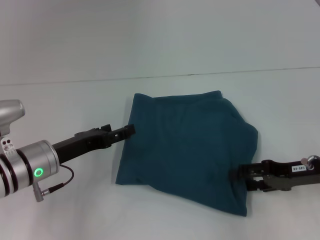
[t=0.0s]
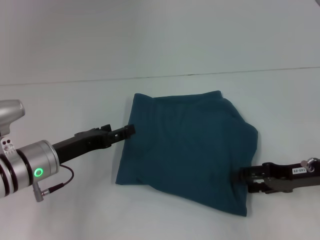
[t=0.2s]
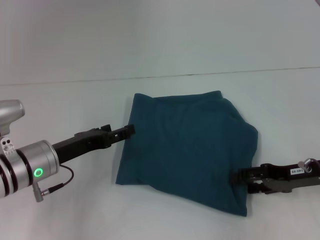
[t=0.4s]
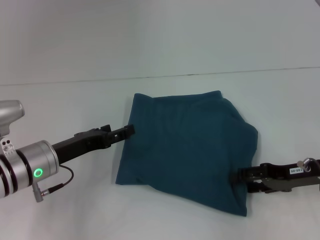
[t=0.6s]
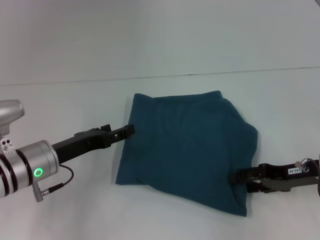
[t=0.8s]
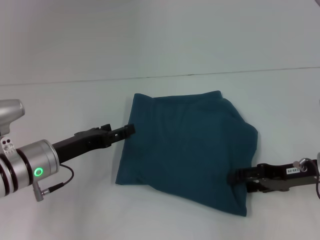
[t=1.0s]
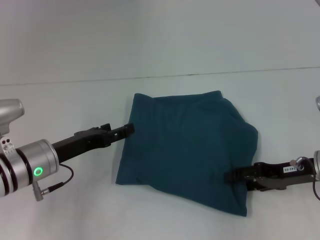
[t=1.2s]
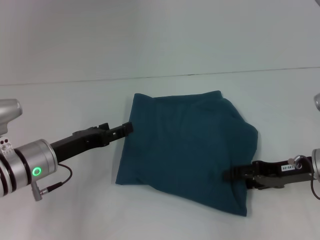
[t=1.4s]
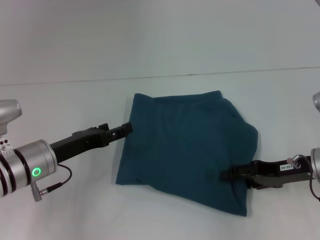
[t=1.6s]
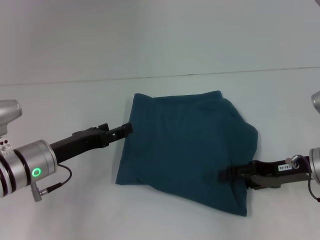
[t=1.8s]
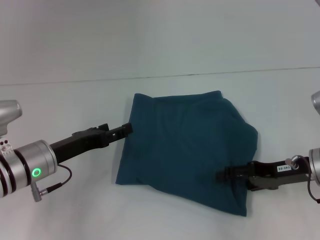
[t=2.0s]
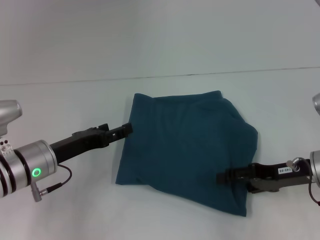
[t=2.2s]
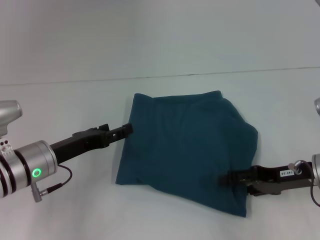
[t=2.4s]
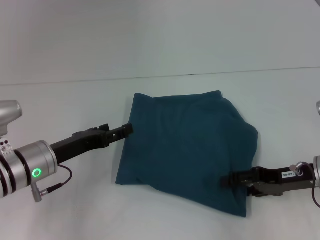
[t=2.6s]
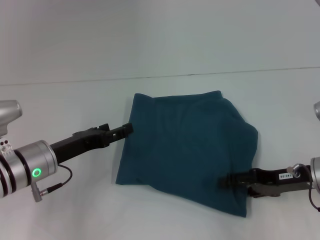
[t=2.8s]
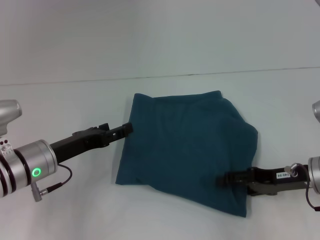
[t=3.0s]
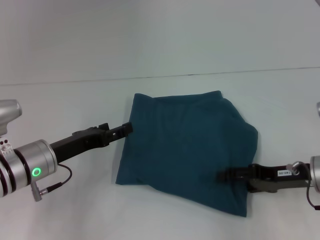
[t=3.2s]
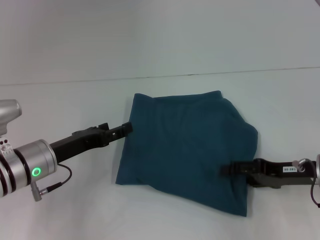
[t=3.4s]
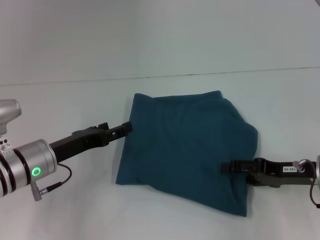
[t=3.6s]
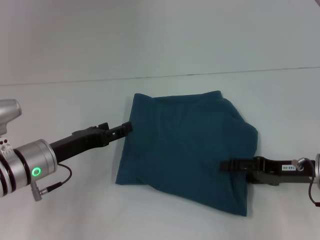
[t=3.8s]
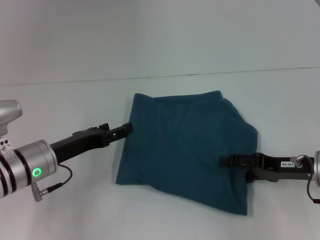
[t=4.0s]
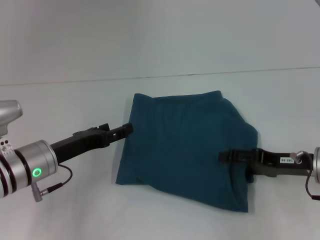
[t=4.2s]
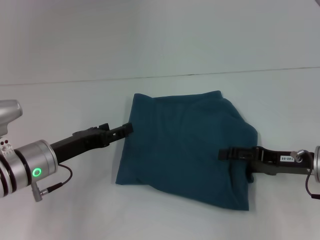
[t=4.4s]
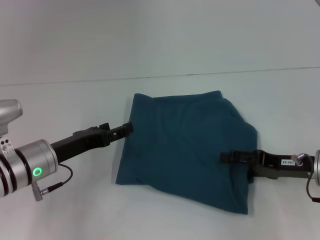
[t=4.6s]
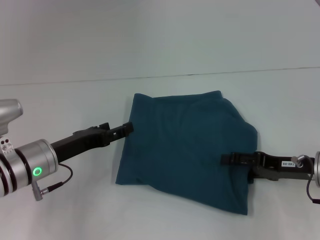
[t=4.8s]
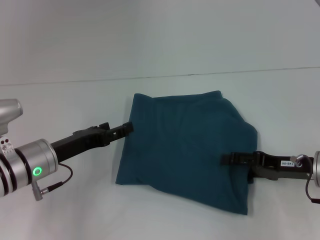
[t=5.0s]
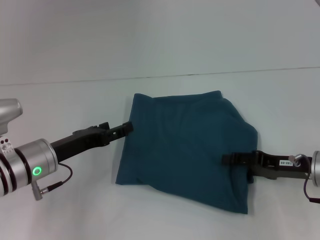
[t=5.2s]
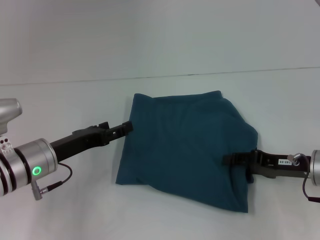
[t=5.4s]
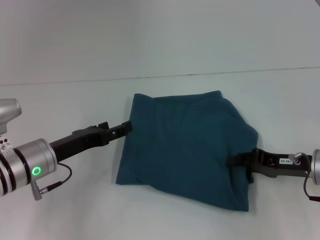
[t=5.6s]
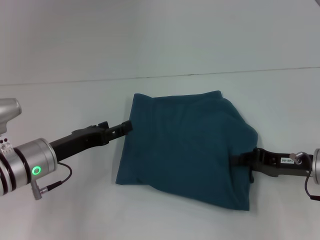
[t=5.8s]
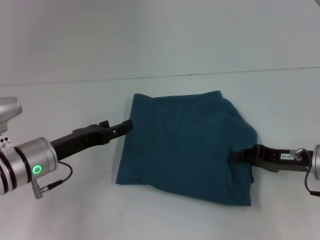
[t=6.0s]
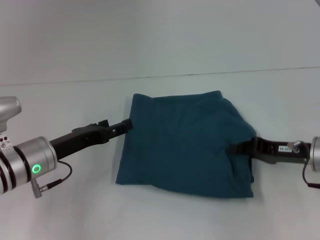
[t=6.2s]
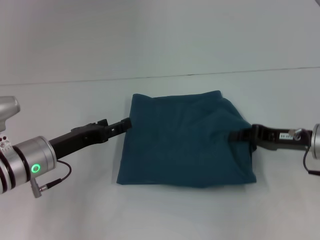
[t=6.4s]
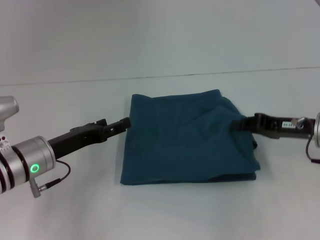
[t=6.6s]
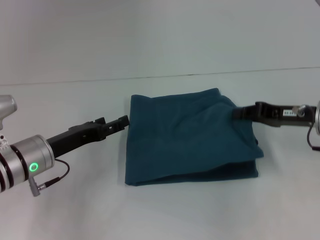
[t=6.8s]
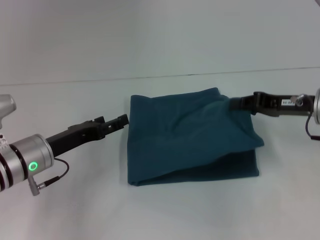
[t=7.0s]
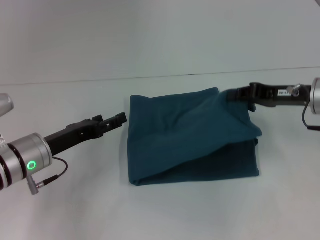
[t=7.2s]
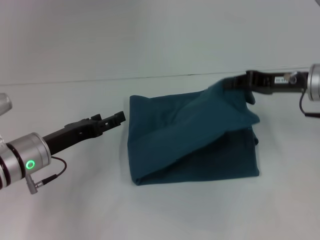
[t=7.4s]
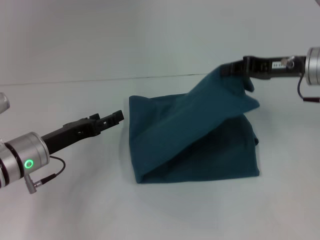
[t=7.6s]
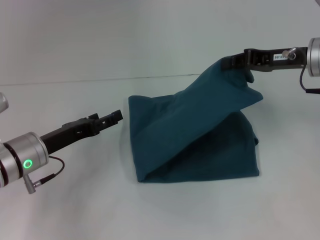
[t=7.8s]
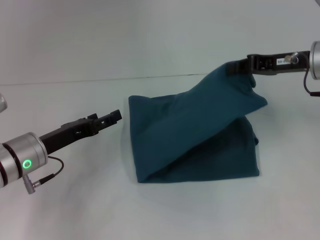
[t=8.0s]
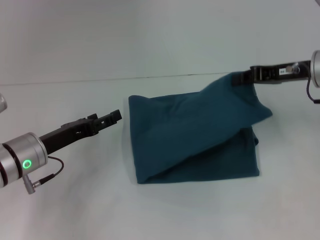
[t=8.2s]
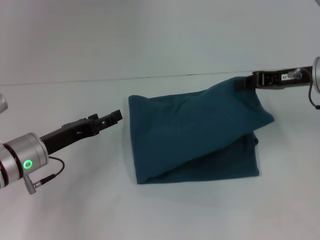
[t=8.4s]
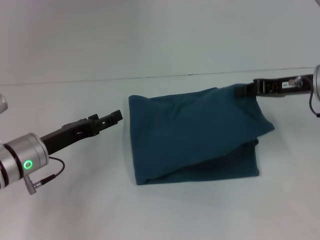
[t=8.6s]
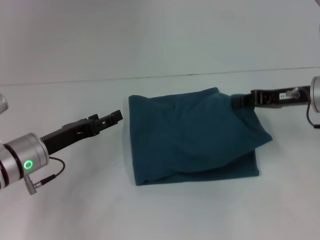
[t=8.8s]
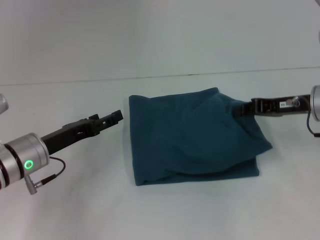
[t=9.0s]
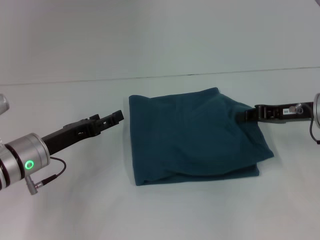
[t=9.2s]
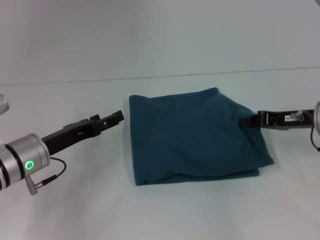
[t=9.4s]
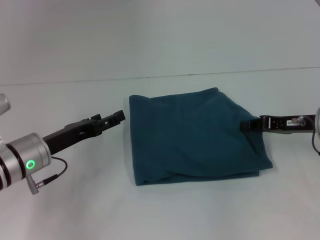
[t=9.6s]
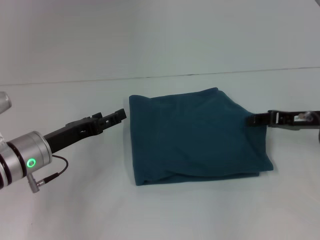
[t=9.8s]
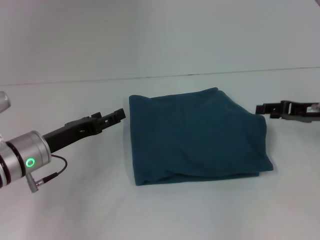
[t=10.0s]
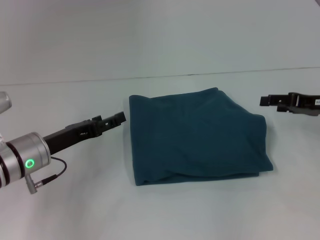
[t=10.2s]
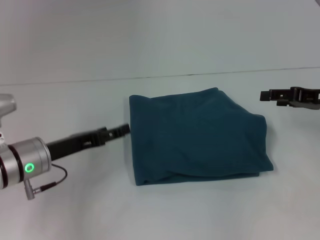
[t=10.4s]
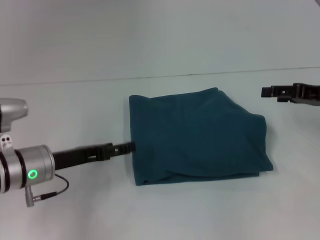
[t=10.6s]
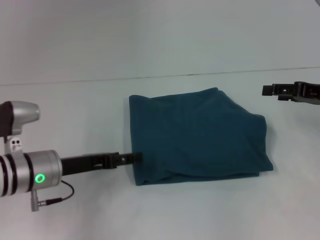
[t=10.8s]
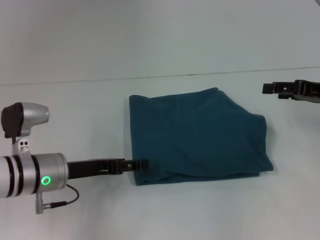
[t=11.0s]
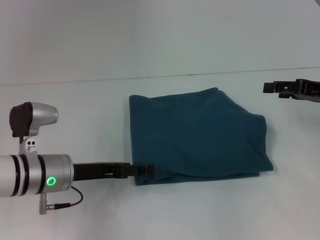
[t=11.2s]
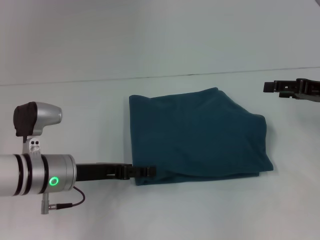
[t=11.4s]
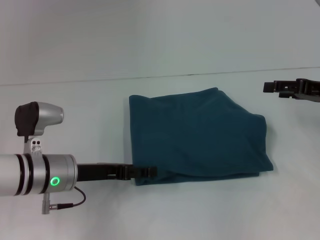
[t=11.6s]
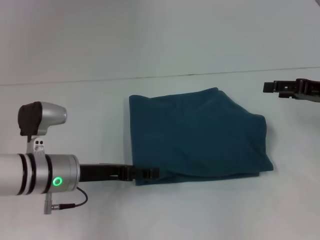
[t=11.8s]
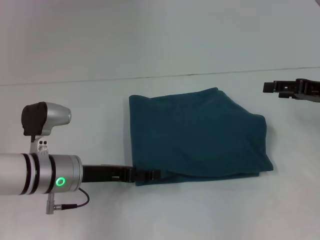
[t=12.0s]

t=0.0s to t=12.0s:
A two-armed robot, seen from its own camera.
t=0.0s to t=4.4s: The grippers stay close to where they were, moving slightly.
t=4.4s to t=6.0s: The right gripper closes up.
t=6.0s to t=7.6s: The right gripper heads upward and forward, covering roughly 15 cm.
t=7.6s to t=9.0s: The right gripper ends up approximately 5 cm from where it was.
t=9.0s to t=10.4s: The right gripper goes approximately 5 cm to the right, and opens.
t=10.4s to t=12.0s: The grippers make only small movements.

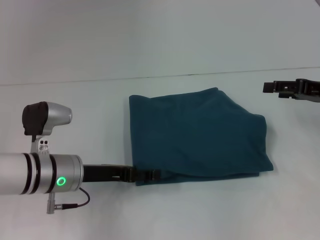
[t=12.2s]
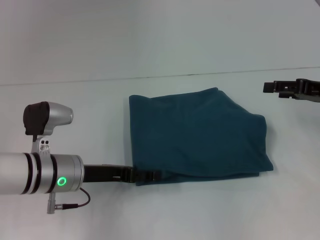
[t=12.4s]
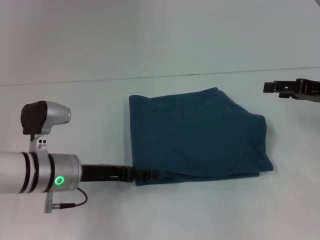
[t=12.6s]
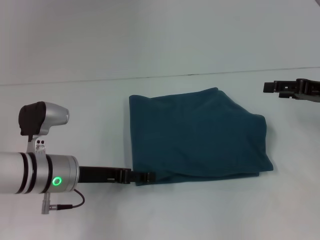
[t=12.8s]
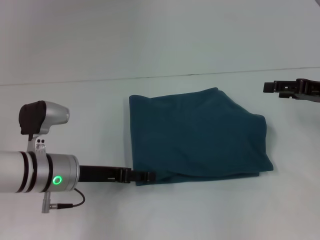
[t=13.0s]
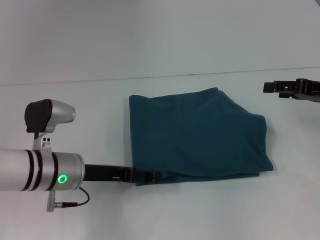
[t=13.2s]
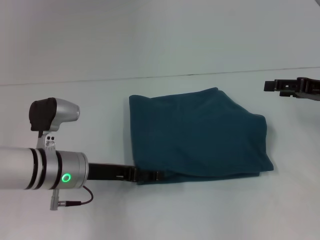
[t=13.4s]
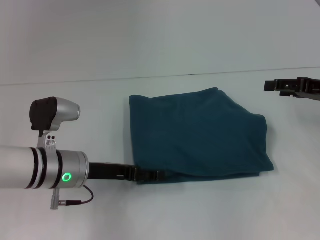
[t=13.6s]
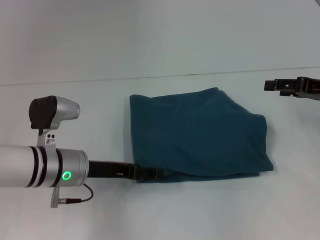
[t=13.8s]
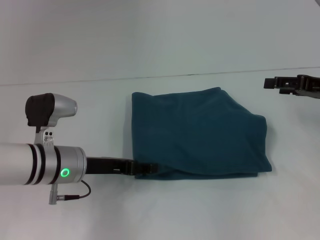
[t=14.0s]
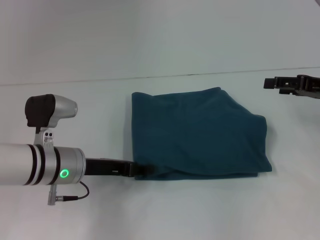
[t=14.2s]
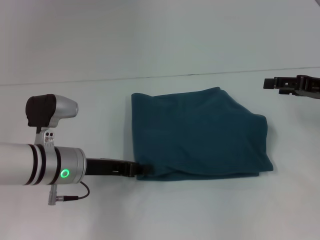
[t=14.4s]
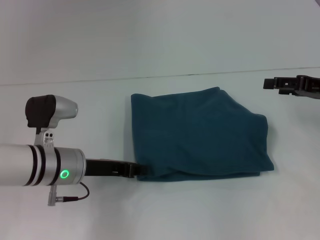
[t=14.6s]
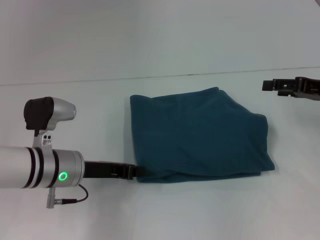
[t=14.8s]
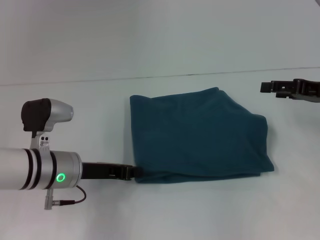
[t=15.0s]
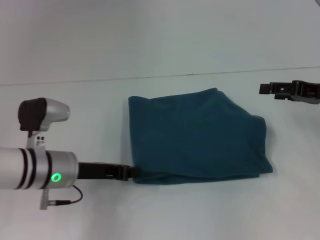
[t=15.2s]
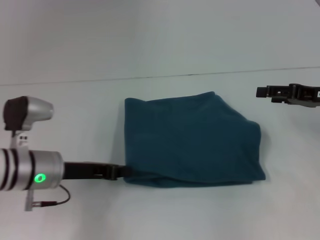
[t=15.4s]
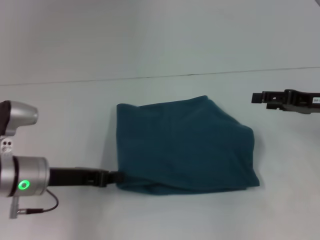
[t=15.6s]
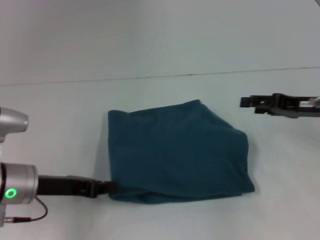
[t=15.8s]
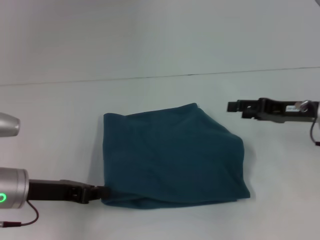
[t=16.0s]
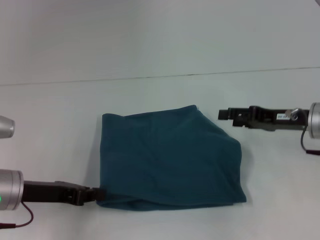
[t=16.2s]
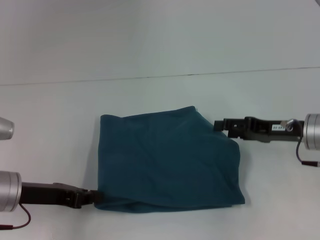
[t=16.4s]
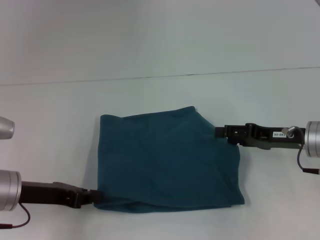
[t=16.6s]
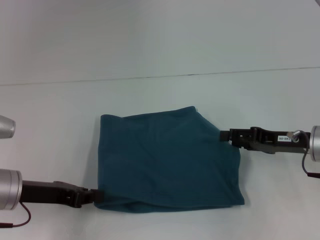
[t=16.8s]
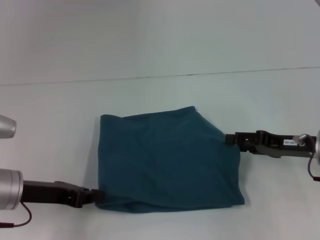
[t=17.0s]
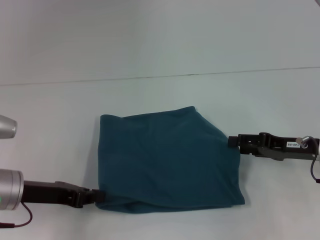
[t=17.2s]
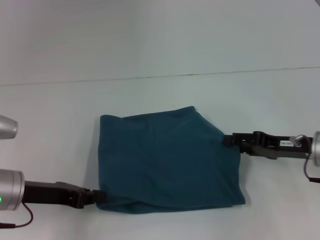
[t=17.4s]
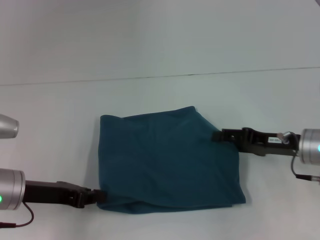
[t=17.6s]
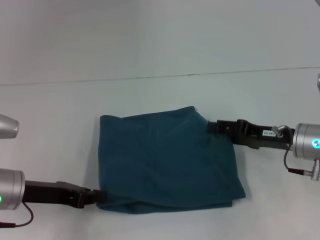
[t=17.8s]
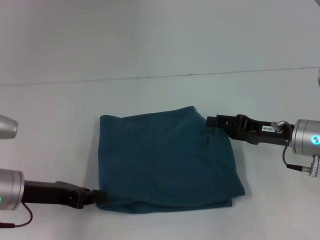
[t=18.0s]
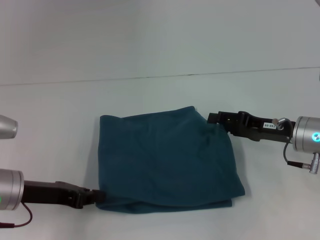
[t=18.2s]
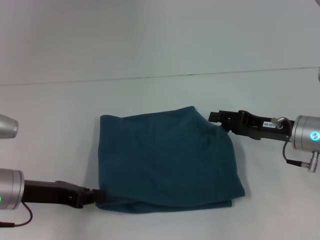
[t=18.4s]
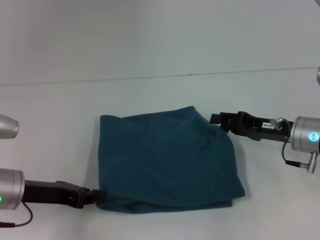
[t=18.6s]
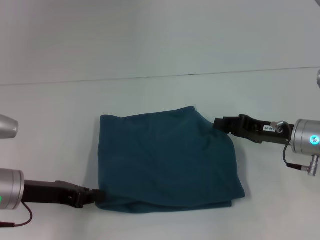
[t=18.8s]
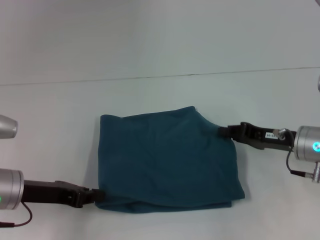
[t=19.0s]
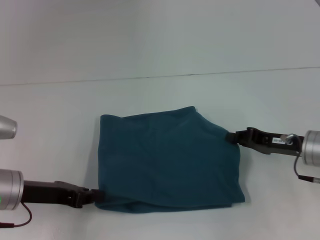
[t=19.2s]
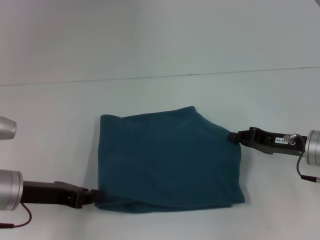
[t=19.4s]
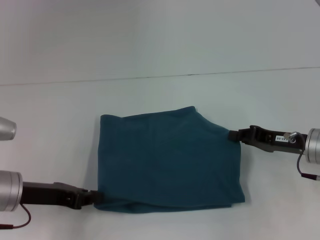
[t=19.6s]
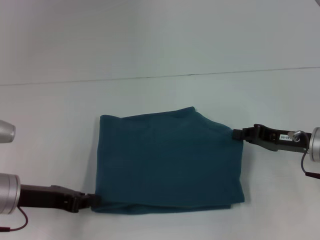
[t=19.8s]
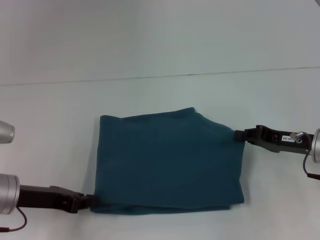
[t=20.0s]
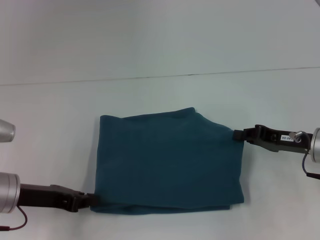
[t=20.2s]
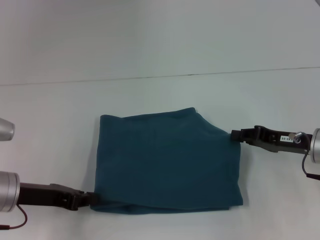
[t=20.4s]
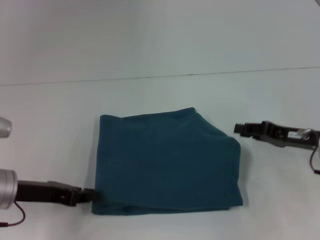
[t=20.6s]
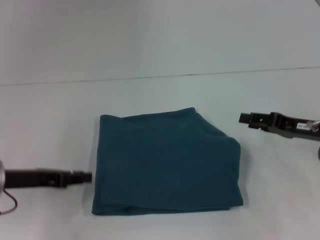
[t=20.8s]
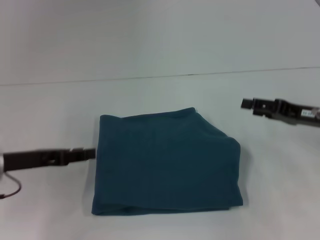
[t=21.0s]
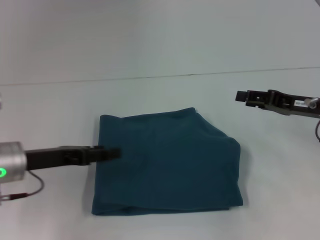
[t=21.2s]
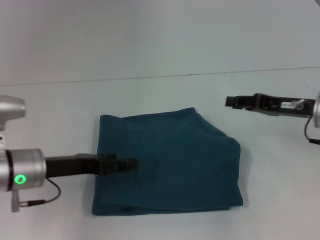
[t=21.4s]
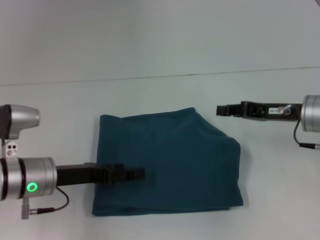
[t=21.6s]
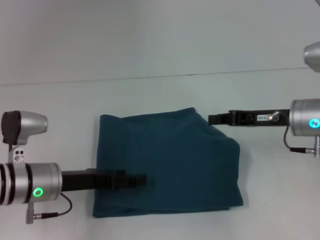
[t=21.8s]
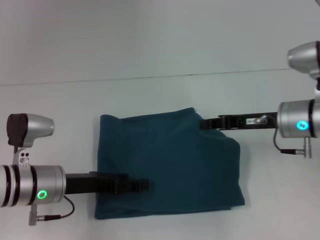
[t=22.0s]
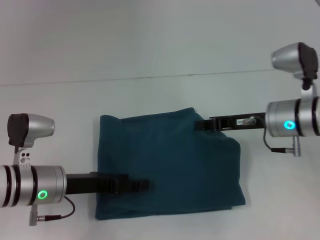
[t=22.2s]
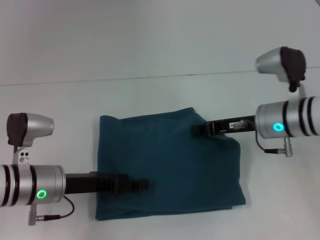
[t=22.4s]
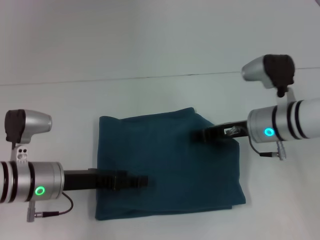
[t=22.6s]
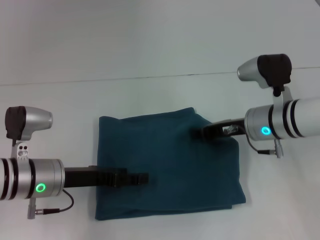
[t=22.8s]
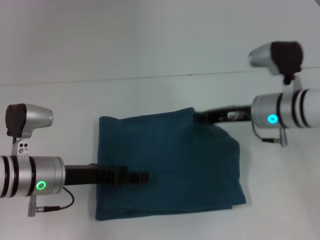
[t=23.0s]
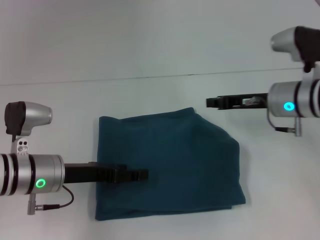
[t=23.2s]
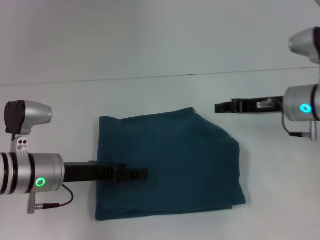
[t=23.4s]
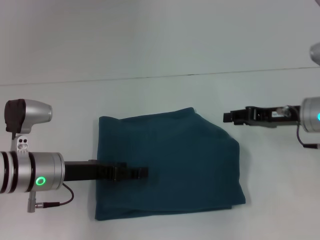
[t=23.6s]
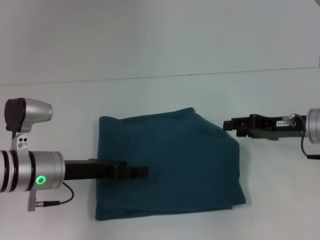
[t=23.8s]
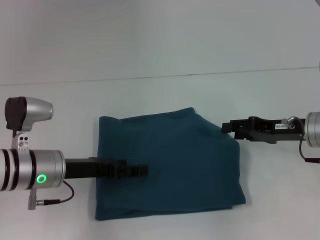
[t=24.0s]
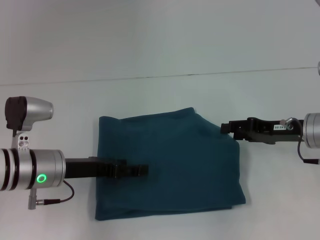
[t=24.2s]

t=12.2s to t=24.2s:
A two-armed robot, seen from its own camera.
t=12.2s to t=13.8s: Both grippers stay put.
t=13.8s to t=15.2s: The left gripper closes up.
t=15.2s to t=16.6s: The left gripper is displaced to the left by roughly 5 cm. Meanwhile the right gripper shifts roughly 10 cm to the left and downward.
t=16.6s to t=18.2s: The grippers stay close to where they were, moving slightly.
t=18.2s to t=19.8s: The right gripper closes its fingers.
t=19.8s to t=21.2s: The left gripper opens its fingers. The right gripper ends up about 5 cm from where it was, and opens.
t=21.2s to t=22.6s: The right gripper shifts some 10 cm to the left, and closes its fingers, while the left gripper ends up roughly 5 cm from where it was, and opens.
t=22.6s to t=24.2s: The right gripper goes roughly 10 cm to the right, and opens its fingers.
